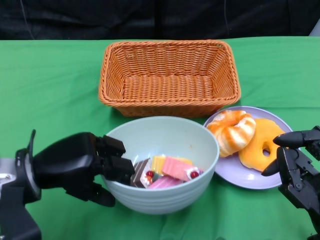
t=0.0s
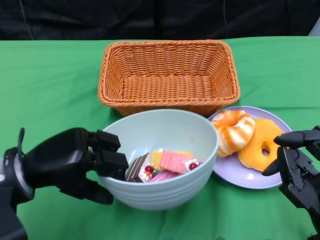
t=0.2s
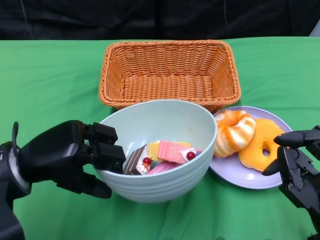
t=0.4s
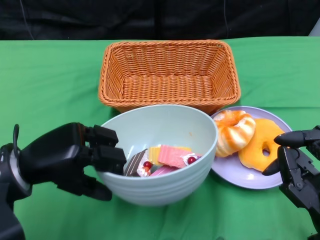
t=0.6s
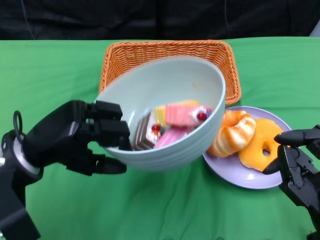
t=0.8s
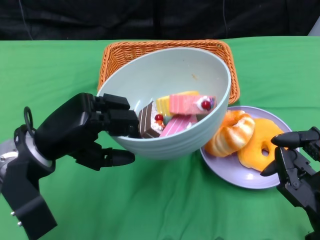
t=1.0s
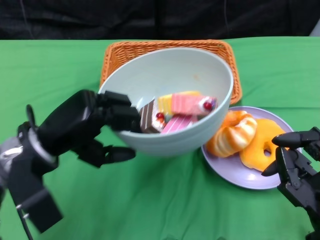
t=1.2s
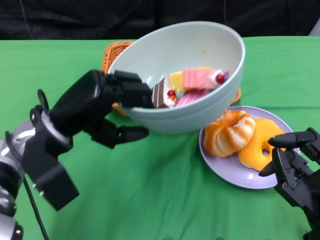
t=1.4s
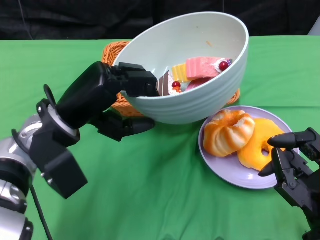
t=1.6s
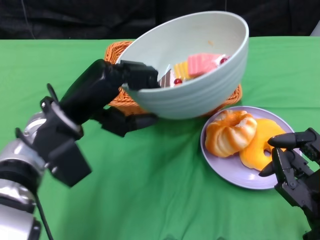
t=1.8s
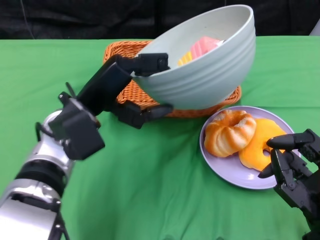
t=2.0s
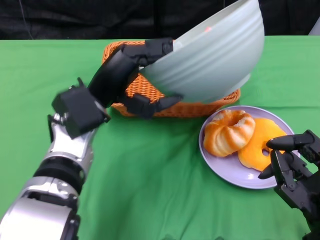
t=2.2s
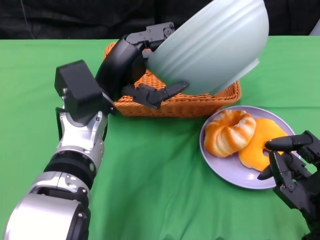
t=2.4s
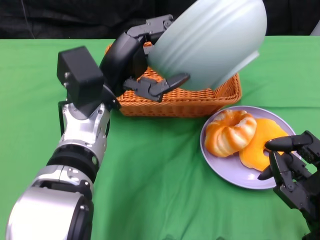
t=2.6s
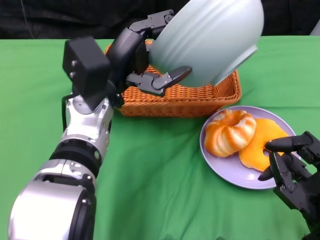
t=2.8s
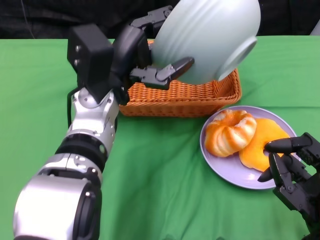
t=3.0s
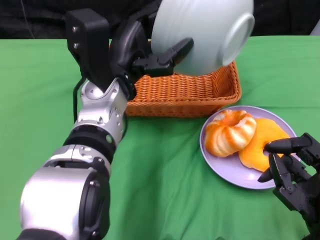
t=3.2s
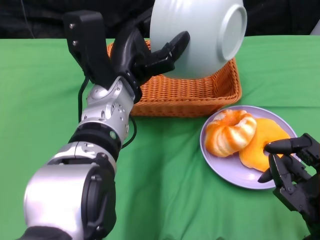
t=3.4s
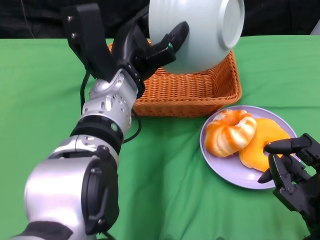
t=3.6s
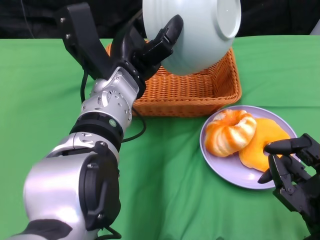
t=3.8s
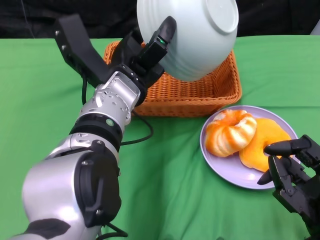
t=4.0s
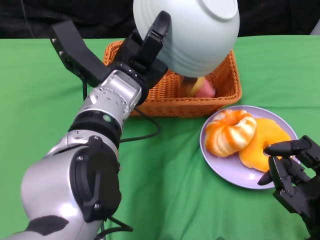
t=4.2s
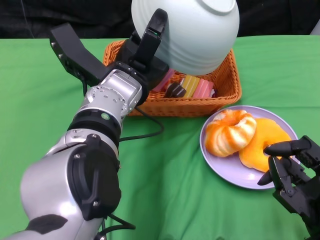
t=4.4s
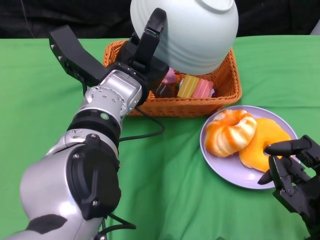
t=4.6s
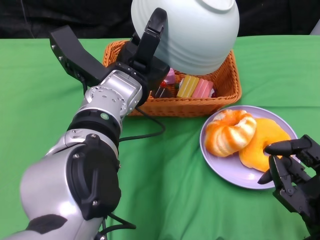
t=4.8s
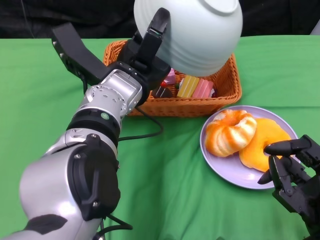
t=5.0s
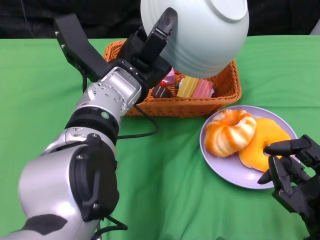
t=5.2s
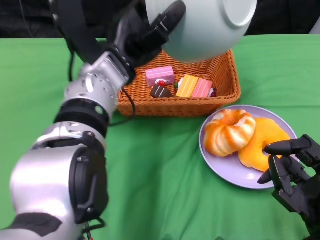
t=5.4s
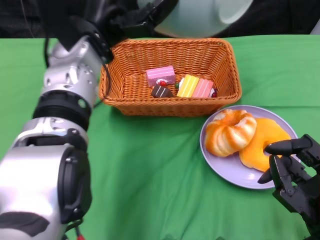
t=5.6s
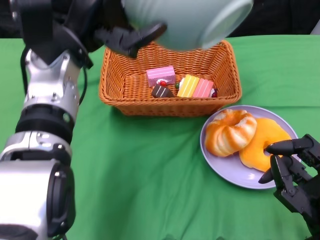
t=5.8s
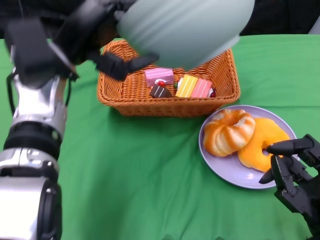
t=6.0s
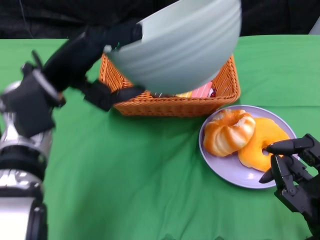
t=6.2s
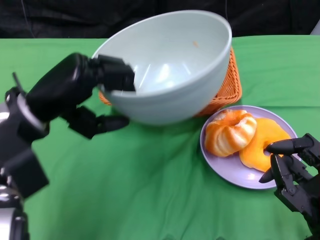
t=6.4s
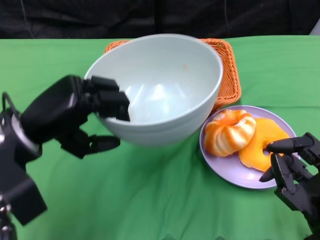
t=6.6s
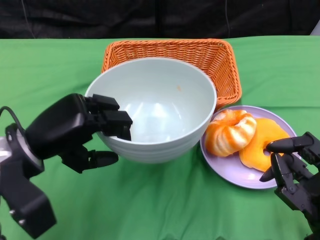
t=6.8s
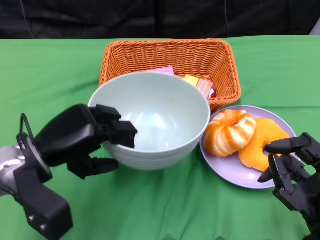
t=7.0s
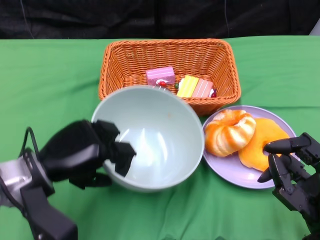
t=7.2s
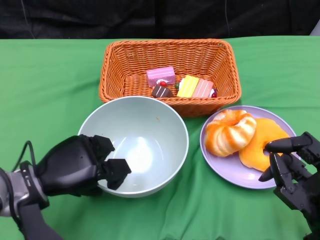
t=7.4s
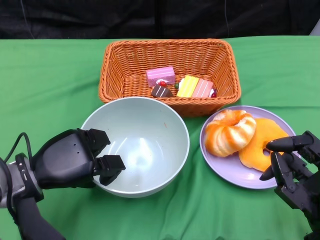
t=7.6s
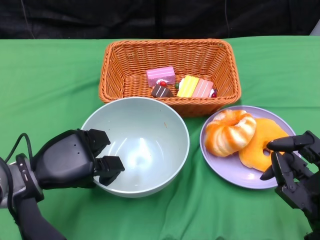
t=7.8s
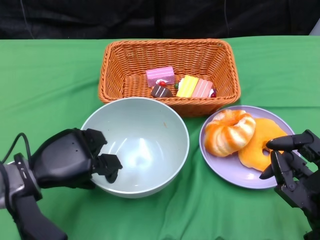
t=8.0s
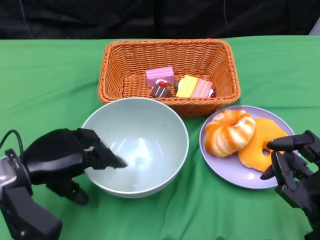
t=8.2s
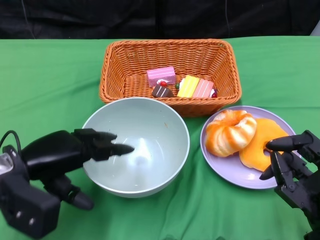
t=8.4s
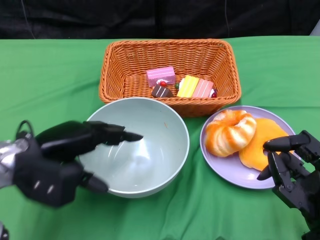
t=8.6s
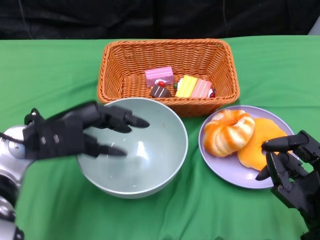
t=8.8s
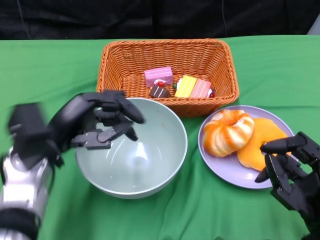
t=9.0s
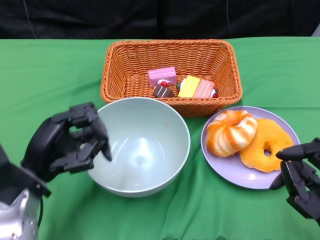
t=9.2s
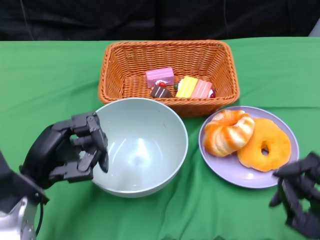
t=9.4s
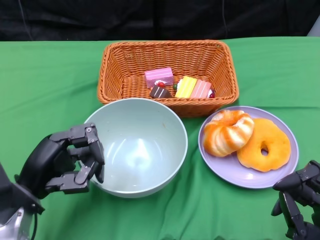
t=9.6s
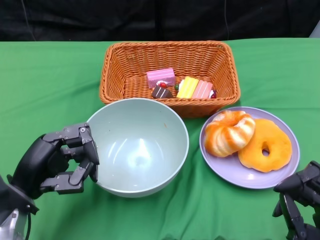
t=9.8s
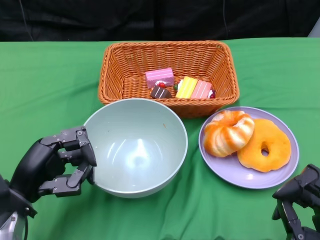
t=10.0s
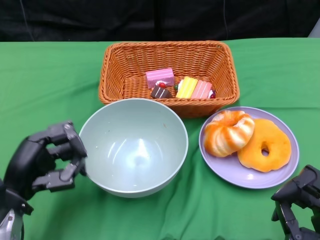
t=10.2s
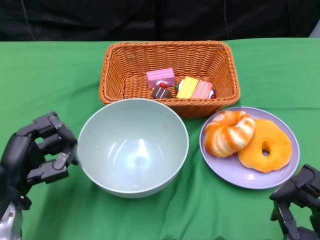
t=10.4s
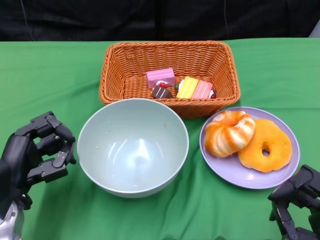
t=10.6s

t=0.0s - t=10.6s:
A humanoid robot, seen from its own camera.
Step, t=0.2s - t=5.6s: Pour the cake into the basket with the left gripper.
Step, t=5.8s - t=7.6s: Place the bowl on the table with the left gripper.
t=0.0s - t=1.6s: The left hand goes roughly 5 cm upward.
t=1.6s - t=3.0s: The left hand moves to the right, roughly 5 cm.
t=4.6s - t=6.0s: The left hand is displaced to the left by approximately 10 cm.
t=6.0s - t=7.6s: The left hand is displaced downward, backward and to the left by approximately 15 cm.
t=9.0s - t=10.6s: The left hand travels backward and downward by some 10 cm. Meanwhile the right hand ends up some 5 cm from where it was.

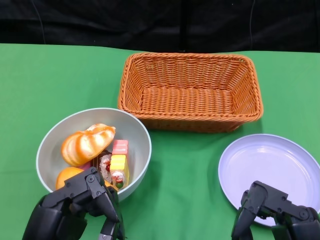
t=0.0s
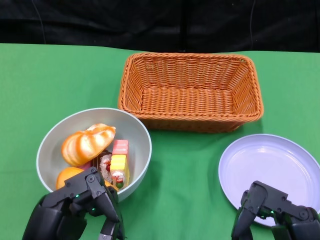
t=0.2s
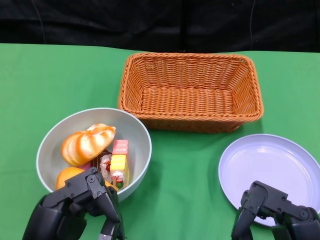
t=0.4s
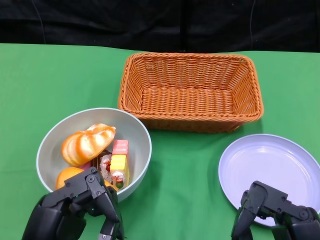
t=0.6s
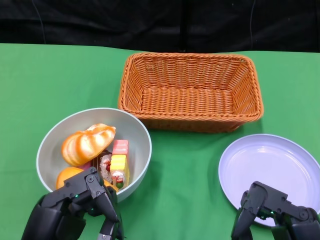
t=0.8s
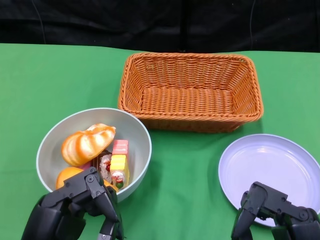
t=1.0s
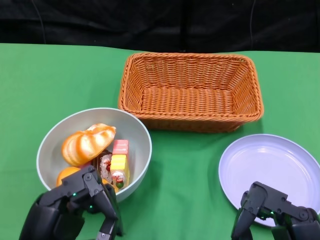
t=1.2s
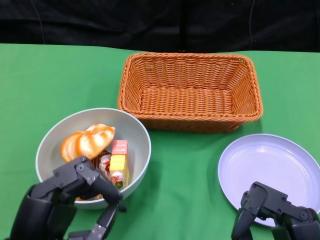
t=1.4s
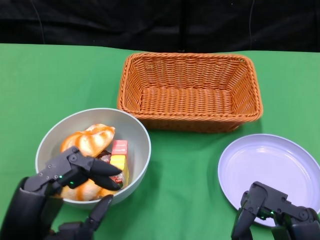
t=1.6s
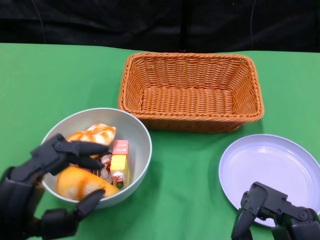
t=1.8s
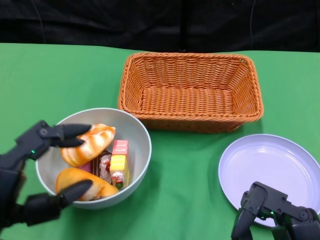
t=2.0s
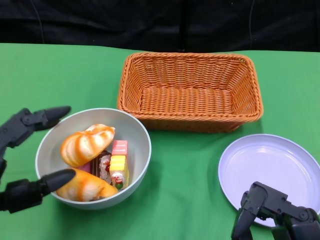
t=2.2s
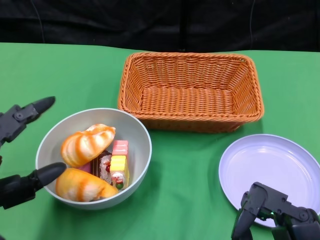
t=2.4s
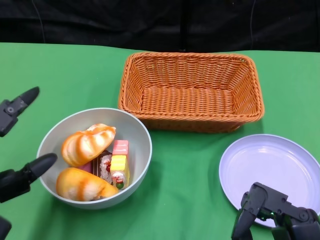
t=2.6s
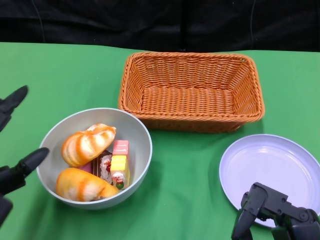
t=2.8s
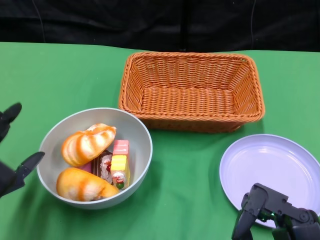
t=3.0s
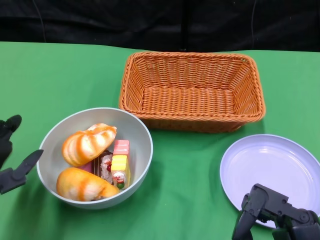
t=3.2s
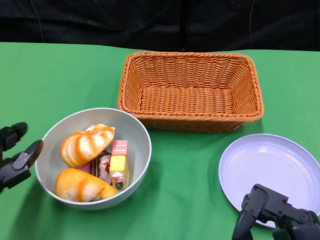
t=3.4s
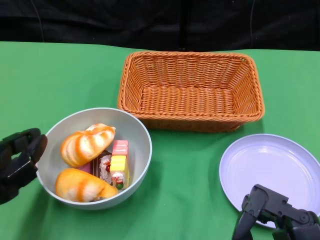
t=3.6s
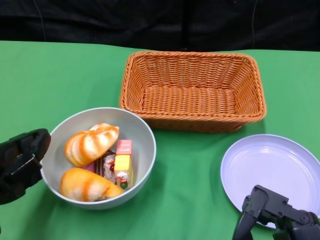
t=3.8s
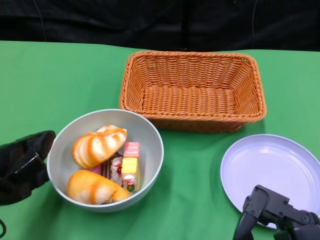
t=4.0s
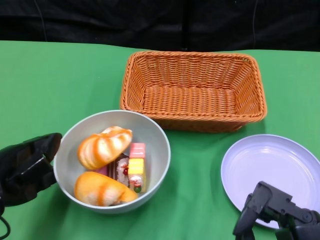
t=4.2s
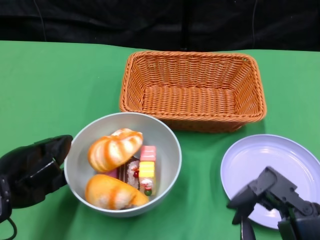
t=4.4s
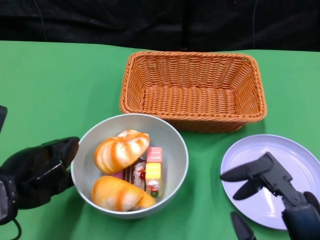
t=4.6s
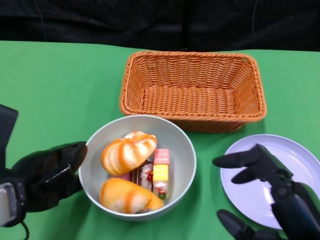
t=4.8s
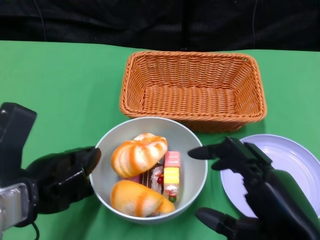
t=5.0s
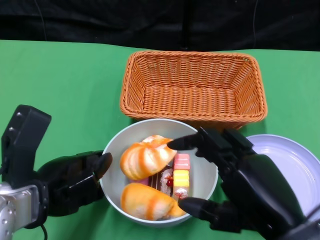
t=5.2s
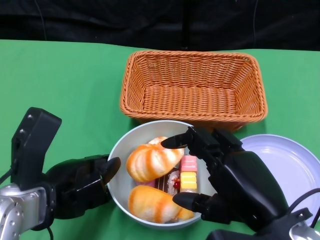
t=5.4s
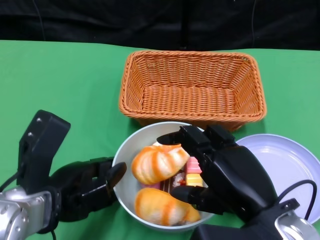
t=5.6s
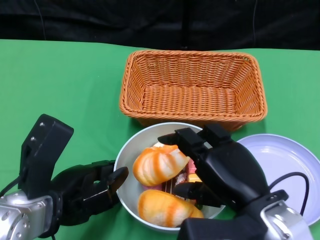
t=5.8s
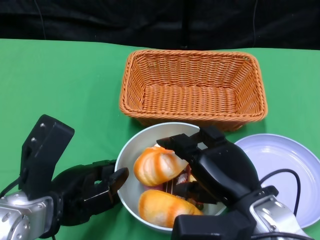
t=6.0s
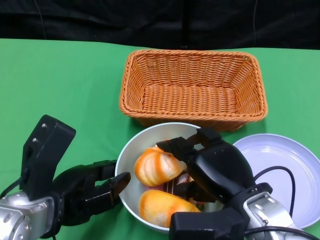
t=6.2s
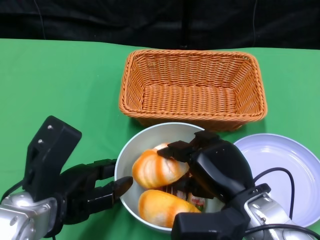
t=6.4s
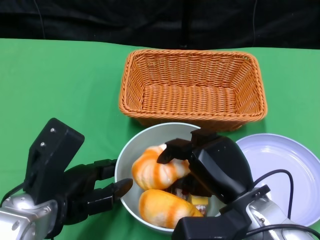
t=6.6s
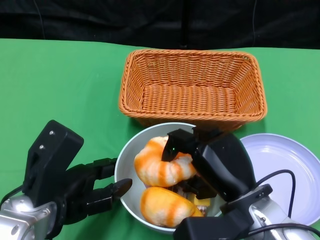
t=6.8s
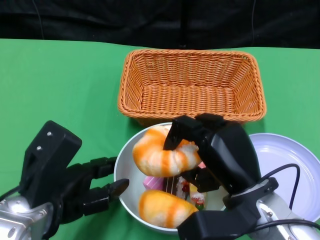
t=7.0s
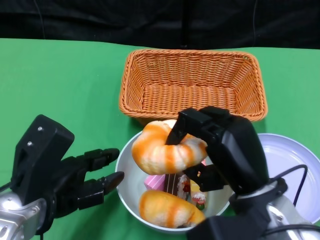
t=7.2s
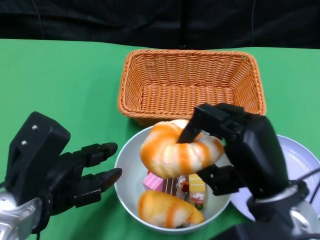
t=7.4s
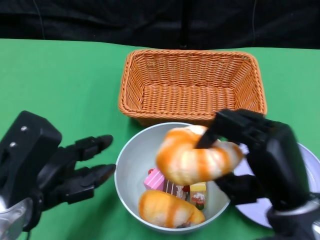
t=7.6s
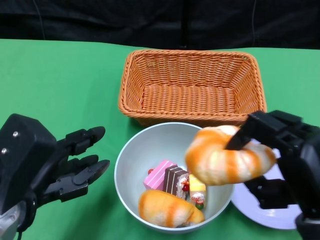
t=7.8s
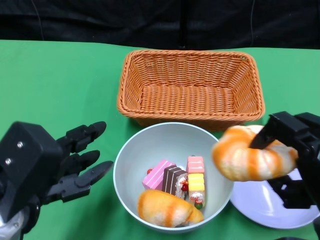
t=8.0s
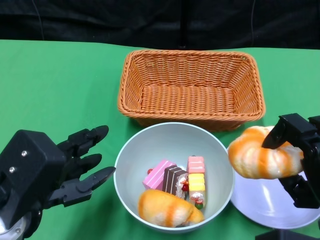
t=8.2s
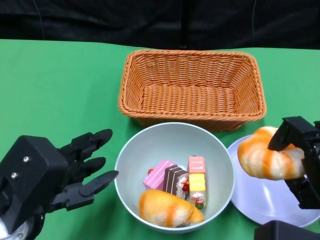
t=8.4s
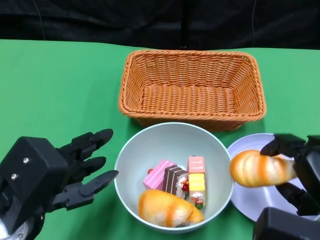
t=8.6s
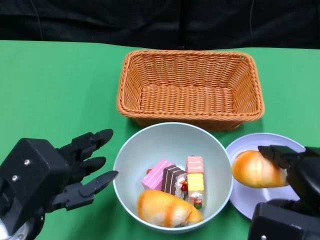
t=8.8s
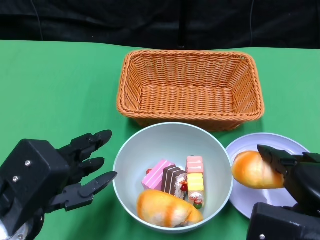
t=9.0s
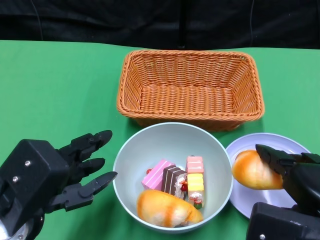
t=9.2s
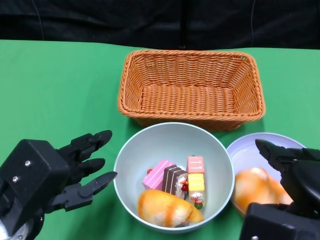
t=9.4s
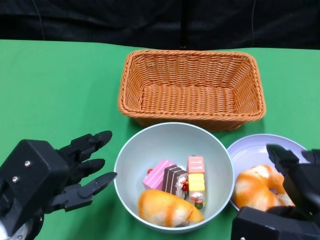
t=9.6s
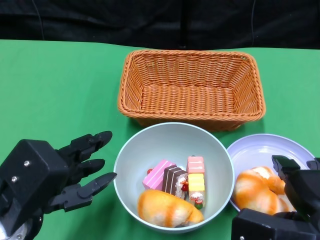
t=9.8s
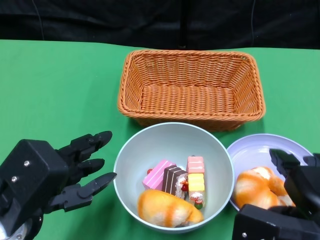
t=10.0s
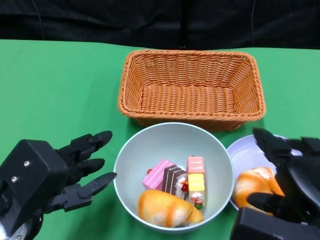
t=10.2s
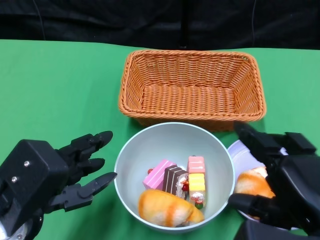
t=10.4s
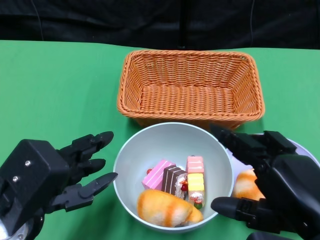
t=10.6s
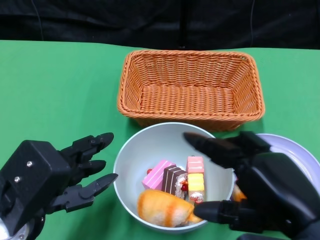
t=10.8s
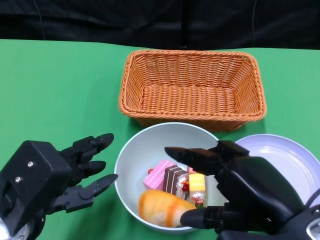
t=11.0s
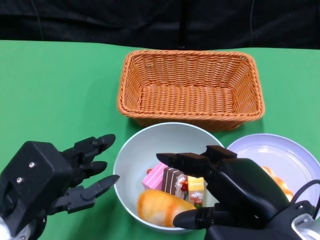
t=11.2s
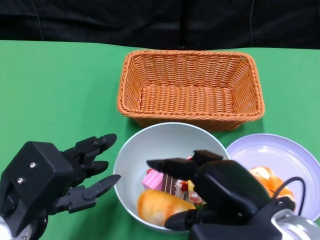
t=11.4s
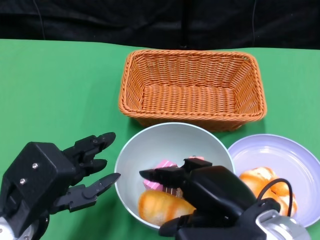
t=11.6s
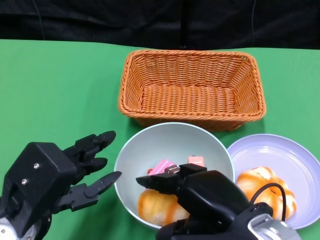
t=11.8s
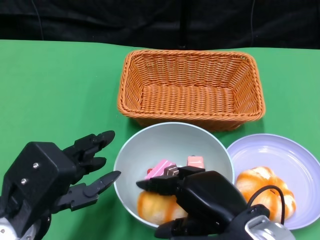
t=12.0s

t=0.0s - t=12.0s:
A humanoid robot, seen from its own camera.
Step, t=0.0s - t=5.0s: Push the bowl to the center of the table using the left gripper.
t=1.6s - t=3.0s: The left hand travels to the left and forward by about 10 cm.
t=4.4s - t=6.0s: The left hand goes approximately 5 cm to the right. Meanwhile the right hand heads forward and to the left, covering roughly 10 cm.
t=7.6s - t=9.0s: The right hand shifts roughly 5 cm to the right.
t=9.0s - t=10.4s: There are only small adjustments of the hands.
t=10.4s - t=12.0s: The right hand travels to the left by some 10 cm.
